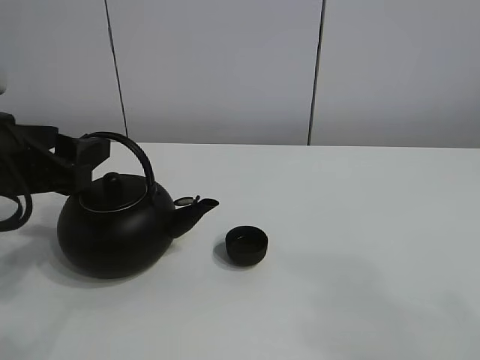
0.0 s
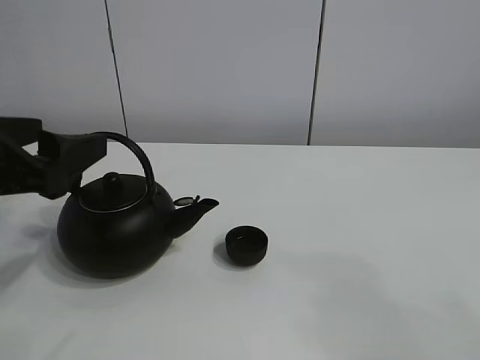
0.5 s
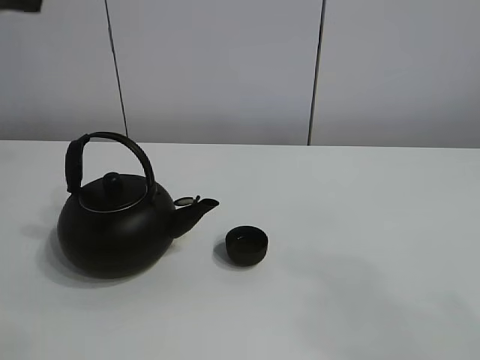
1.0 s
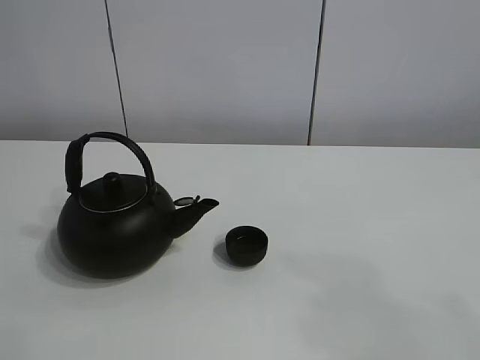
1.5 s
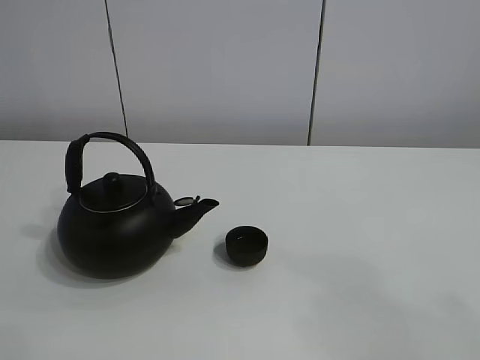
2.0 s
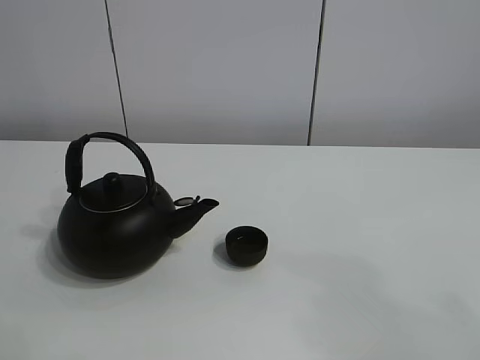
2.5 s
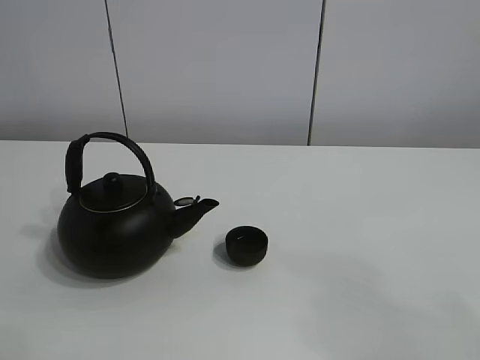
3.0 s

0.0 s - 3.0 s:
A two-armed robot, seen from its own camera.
Task of the whole recording: pour tea into the teacup.
0.0 s - 1.5 s: The left gripper heads upward, covering approximately 25 cm.

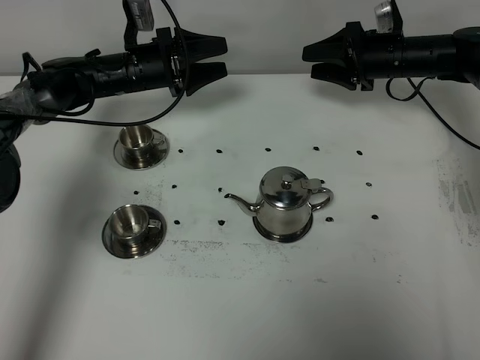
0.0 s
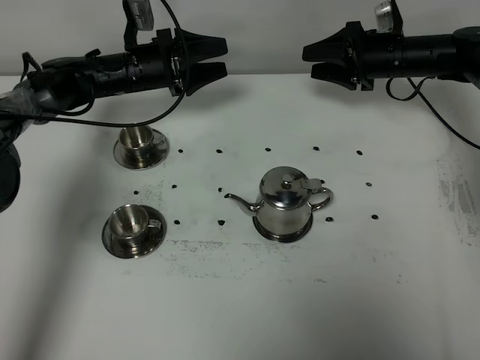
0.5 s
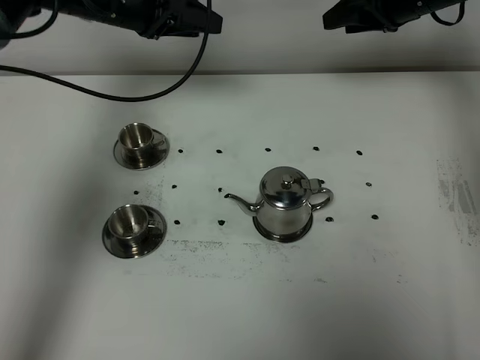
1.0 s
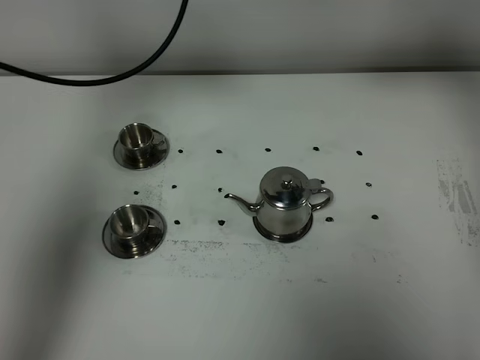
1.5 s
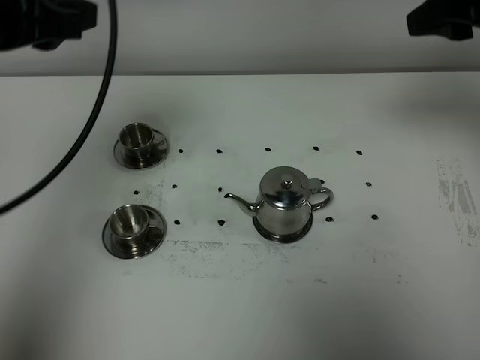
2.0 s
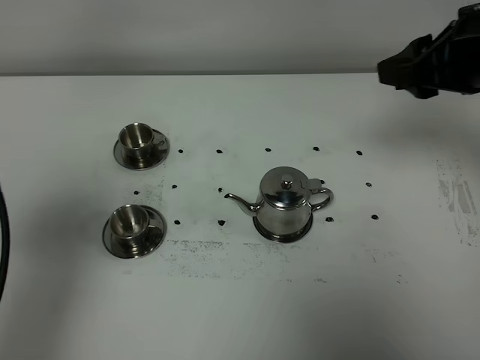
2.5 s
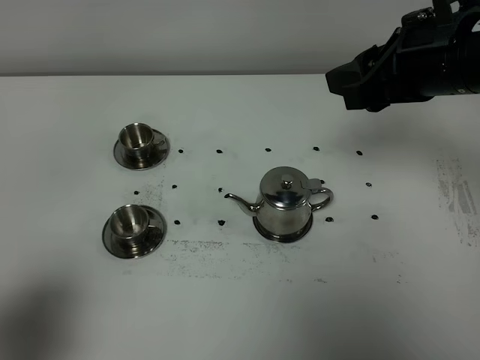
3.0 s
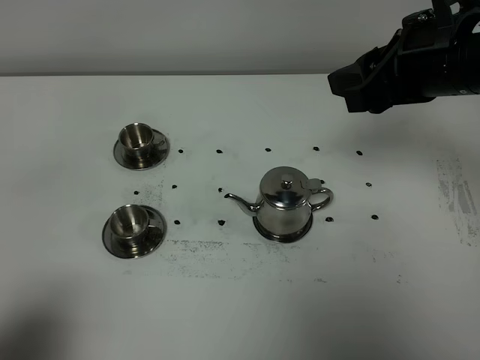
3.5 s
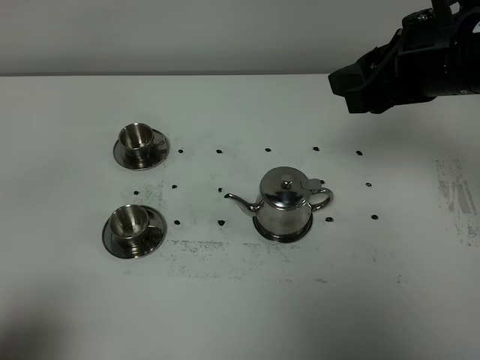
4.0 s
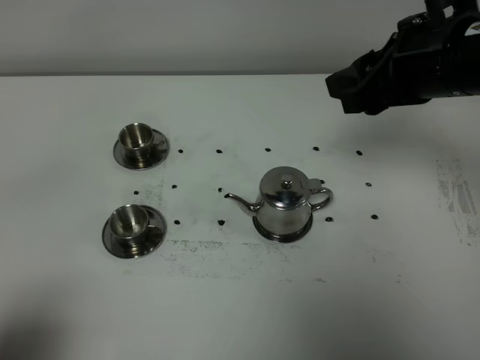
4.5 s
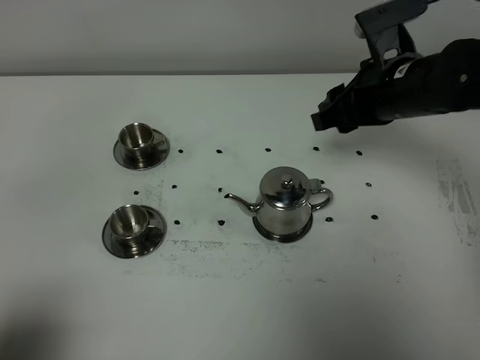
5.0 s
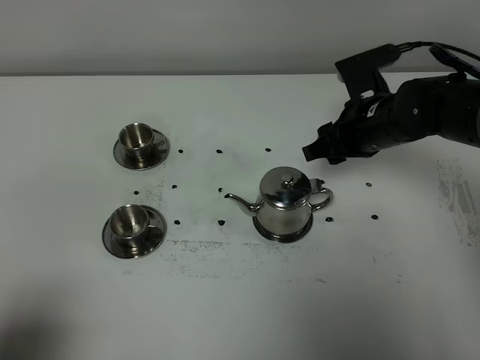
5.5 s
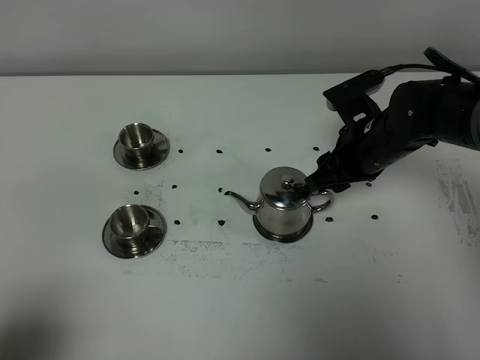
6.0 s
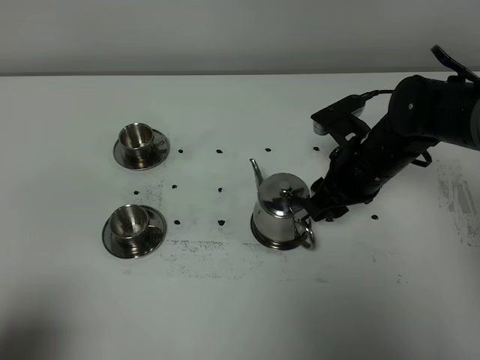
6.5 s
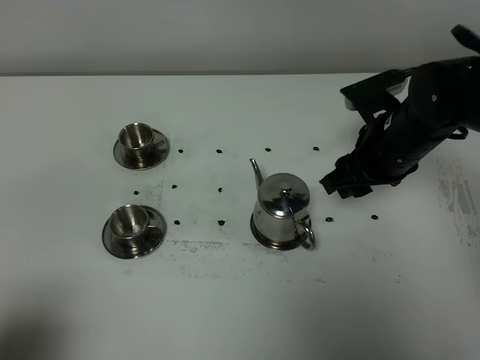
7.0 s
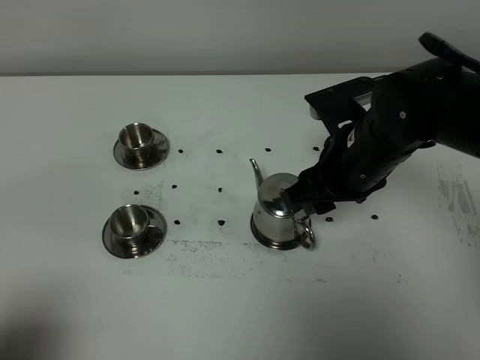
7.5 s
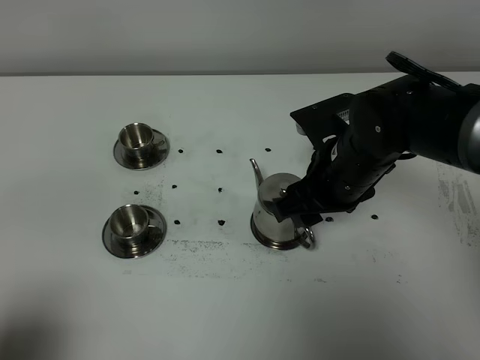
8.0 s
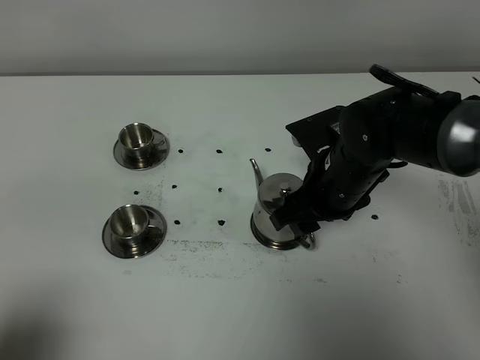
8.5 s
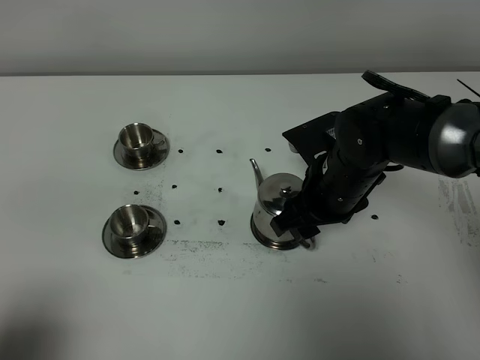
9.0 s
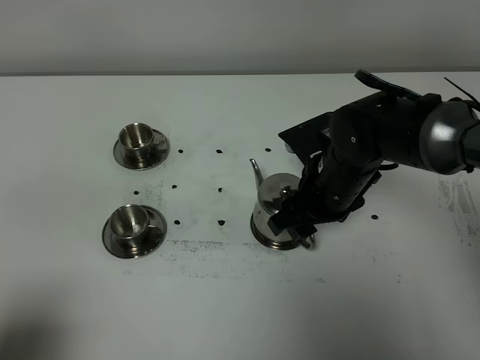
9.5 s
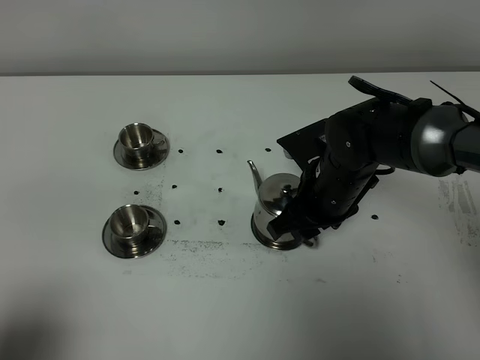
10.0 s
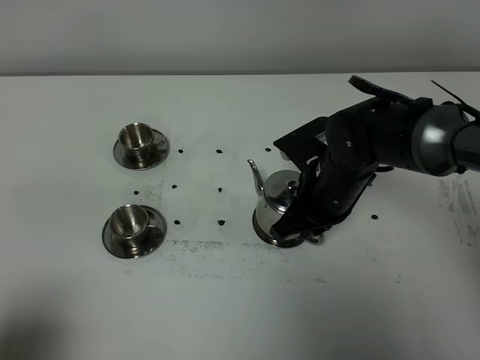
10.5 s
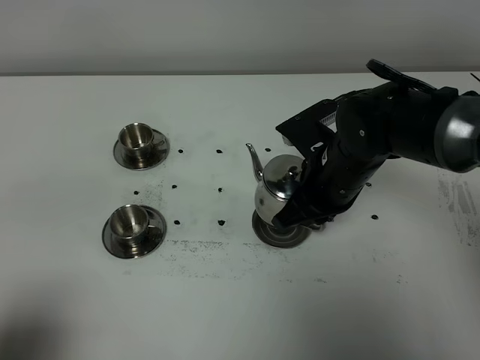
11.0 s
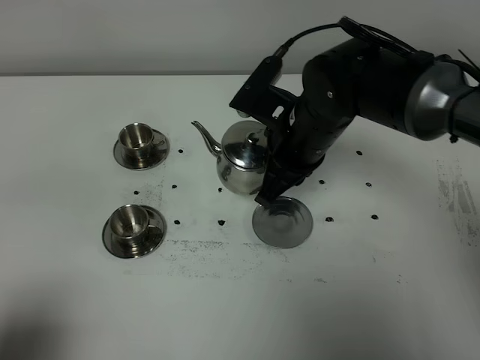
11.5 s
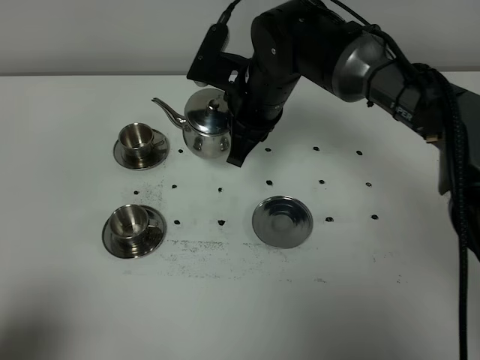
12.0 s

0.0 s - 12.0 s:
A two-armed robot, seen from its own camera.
Task of the whole recording: grasp the stainless steel teapot and pour the tea into the two stainless steel teacups one by one, put the stainless steel teapot back in its original place.
Step, 0.0 s - 10.5 s: Pick up the teapot with the right gripper.
0.0 s - 2.0 s: Both grippers travel together upward and backward, approximately 35 cm. The left gripper closes its fingers.
2.0 s - 4.0 s: The right gripper moves to the left, approximately 5 cm; the left gripper heads backward and downward, covering approximately 30 cm.
4.0 s - 6.0 s: The right gripper heads downward, covering approximately 20 cm.
6.0 s - 8.0 s: The right gripper heads backward, covering some 5 cm.
8.0 s - 10.0 s: The right gripper closes up.
10.0 s - 12.0 s: The right gripper shifts roughly 15 cm forward, to the left and upward, and closes up.

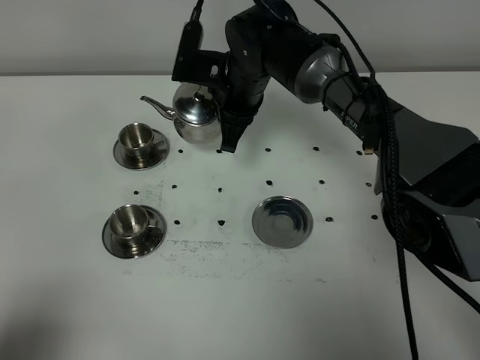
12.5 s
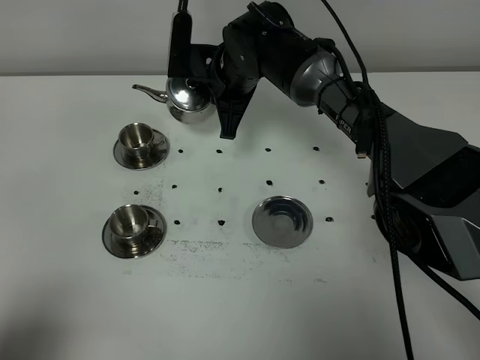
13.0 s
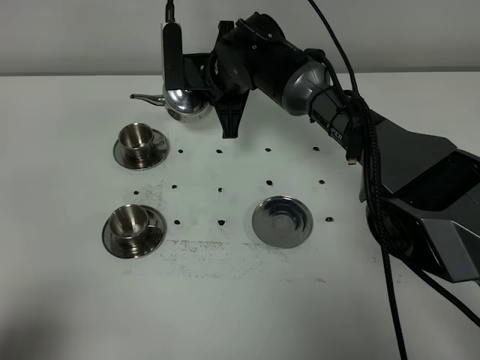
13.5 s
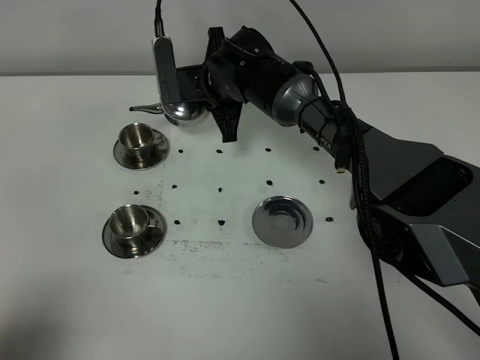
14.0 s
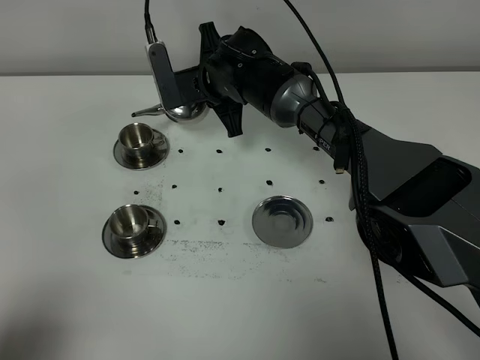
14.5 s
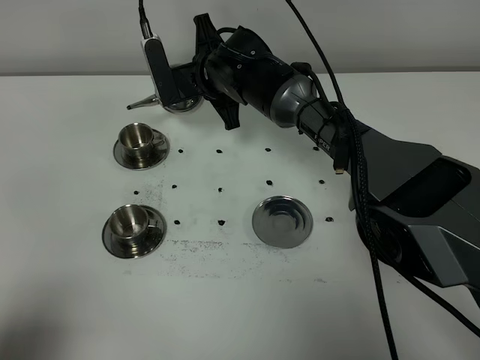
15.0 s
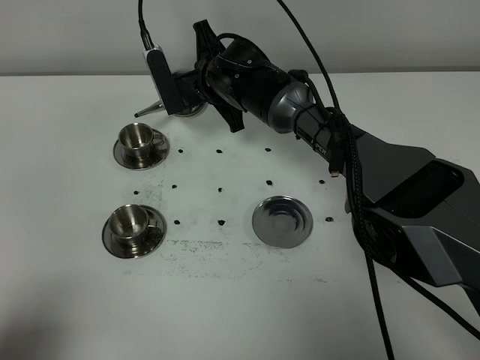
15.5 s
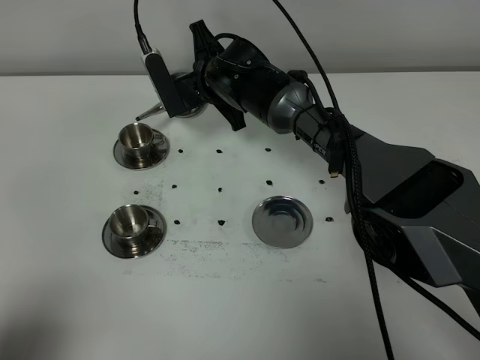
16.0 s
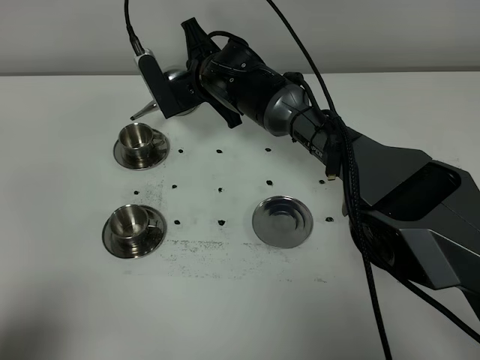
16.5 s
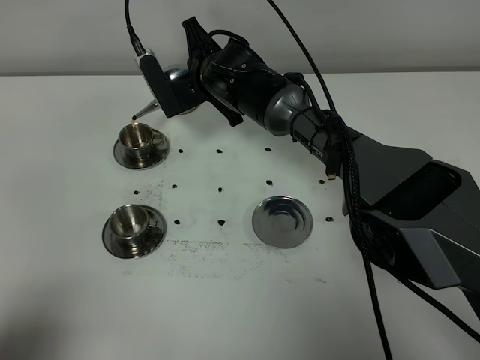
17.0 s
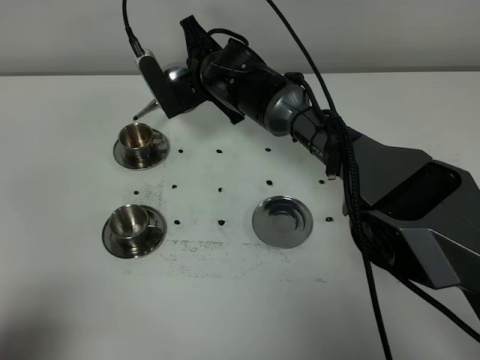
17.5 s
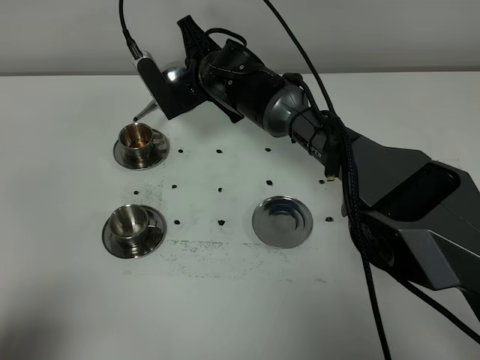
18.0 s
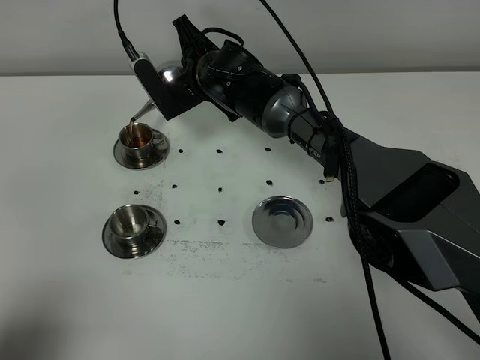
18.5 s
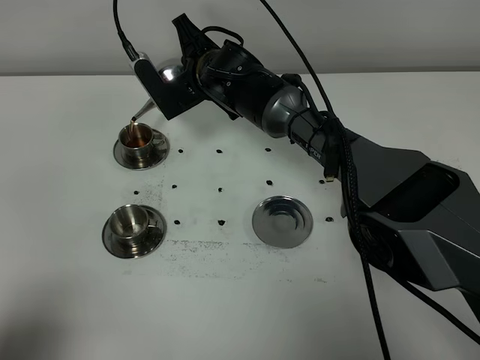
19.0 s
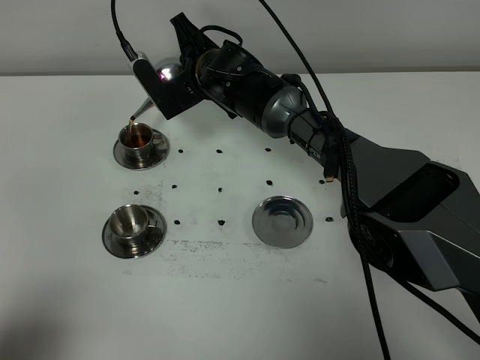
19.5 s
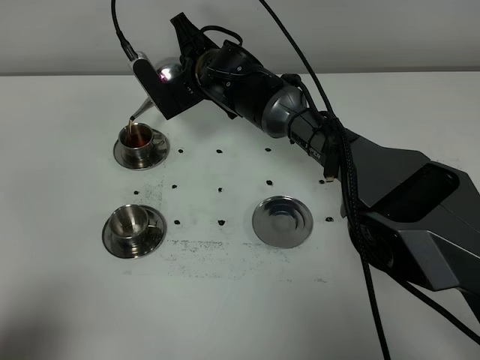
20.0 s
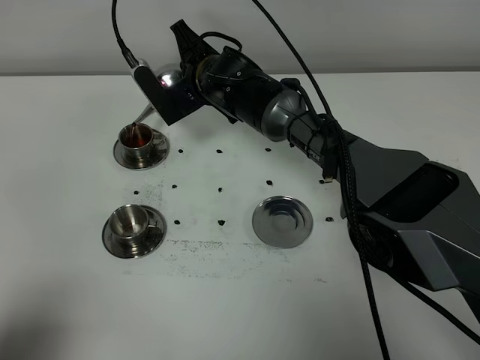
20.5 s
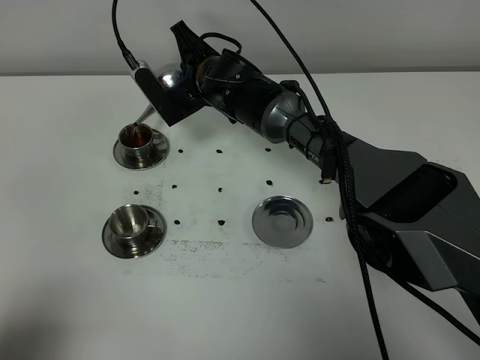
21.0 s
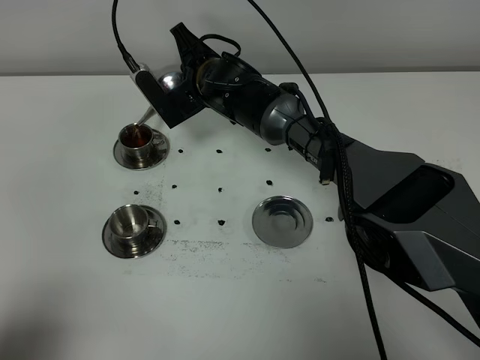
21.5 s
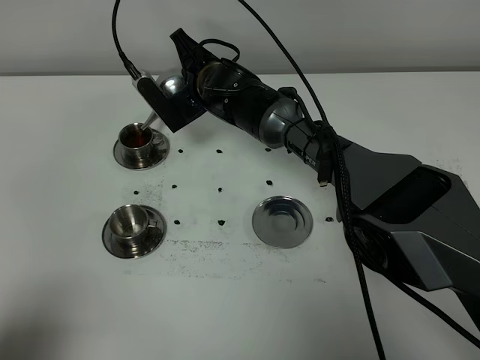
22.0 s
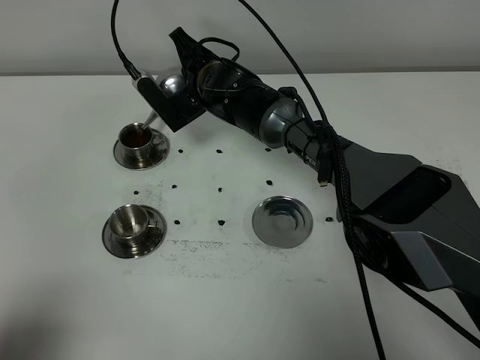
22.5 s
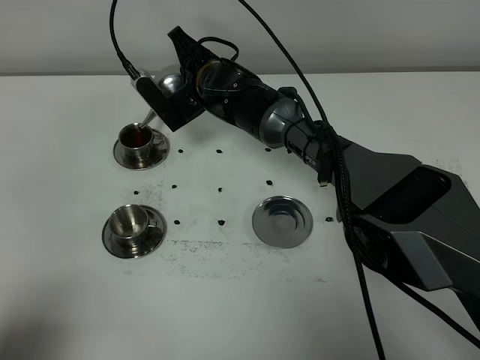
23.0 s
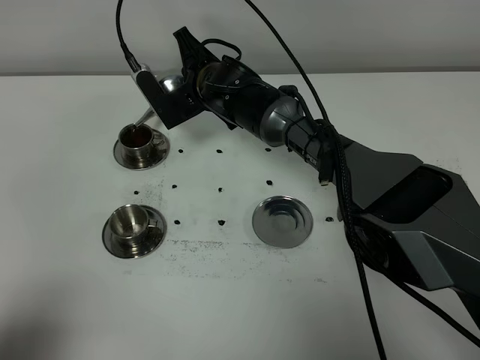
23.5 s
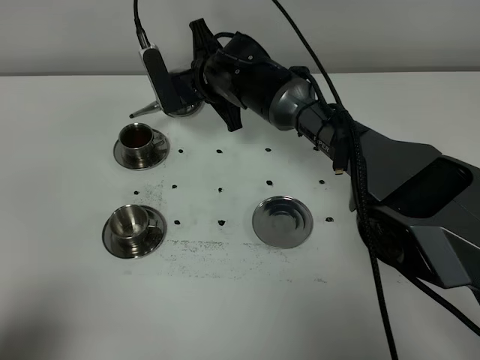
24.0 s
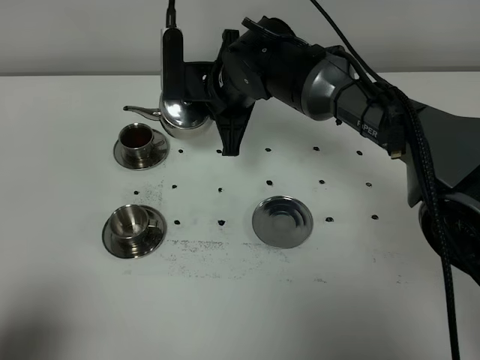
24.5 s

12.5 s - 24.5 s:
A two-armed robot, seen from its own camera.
Task of the whole recording: grasp the stainless steel teapot and pour the tea into the two stainless steel teacups one by one, put the stainless steel teapot back in its original place.
Step, 12.5 s - 23.5 s: Pour tea into the teacup with the right gripper.
14.5 s - 16.5 s: The grippers make only small movements.
16.5 s - 18.5 s: The grippers stay close to where they were, moving slightly.
18.5 s - 20.5 s: The two grippers keep their place.
20.5 s - 22.5 s: The grippers make only small movements.
22.5 s - 24.5 s: The right gripper shifts approximately 10 cm backward and upward.
